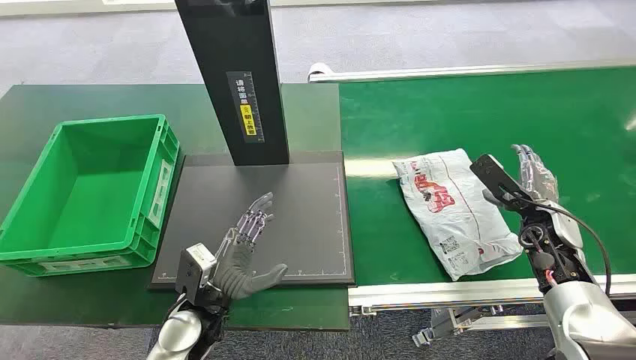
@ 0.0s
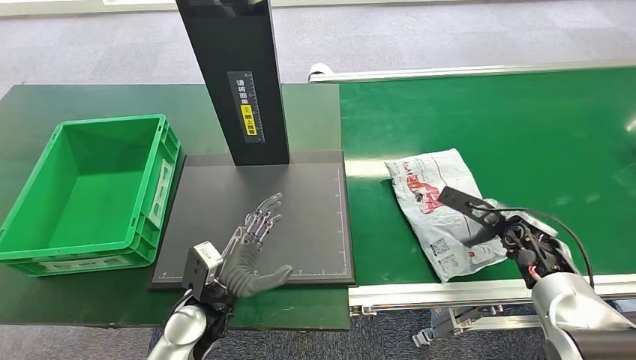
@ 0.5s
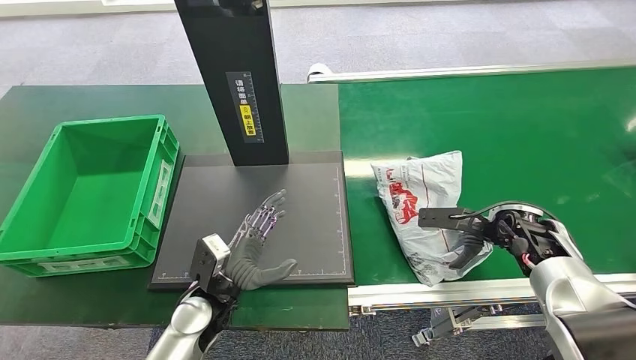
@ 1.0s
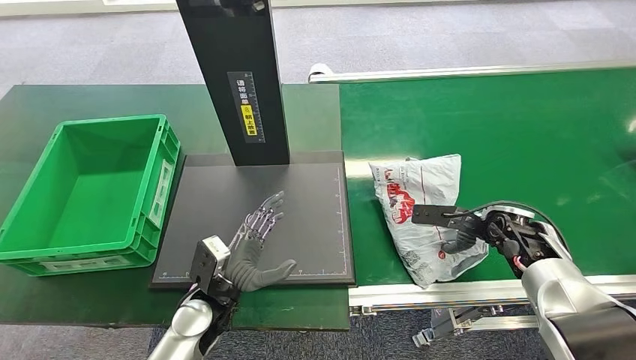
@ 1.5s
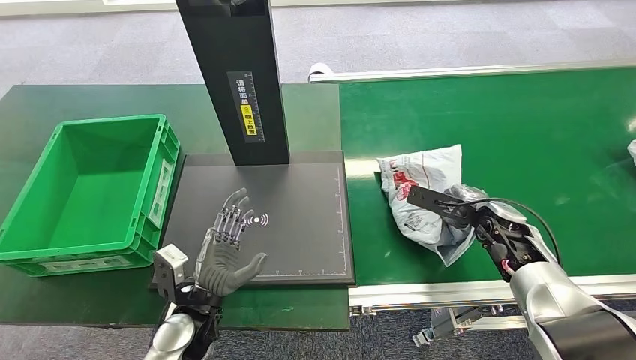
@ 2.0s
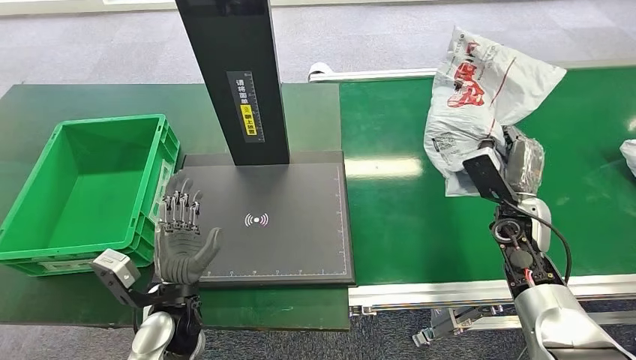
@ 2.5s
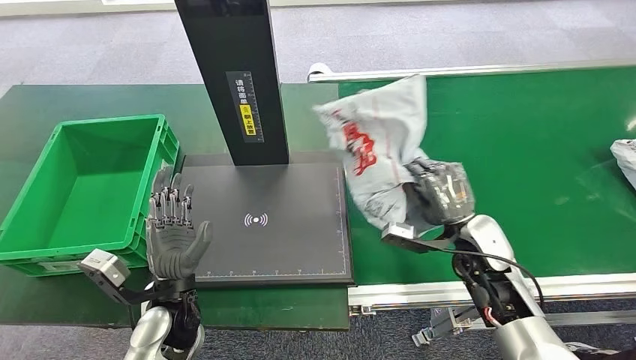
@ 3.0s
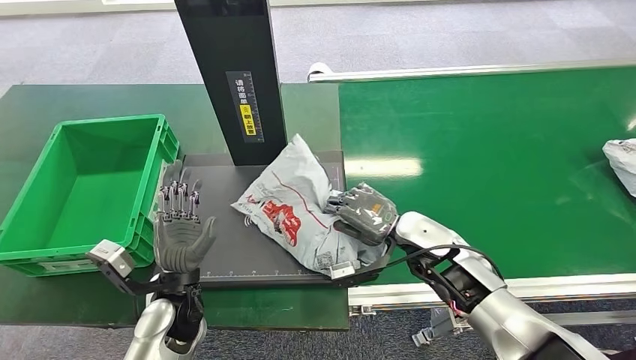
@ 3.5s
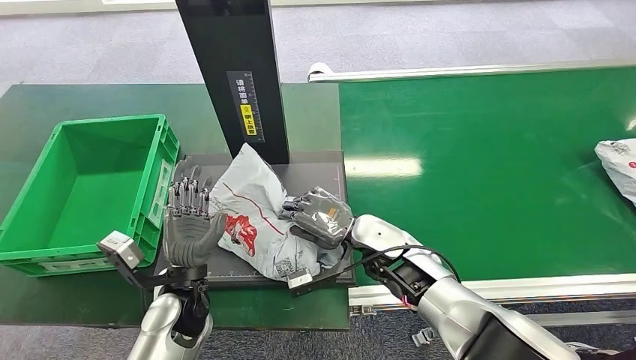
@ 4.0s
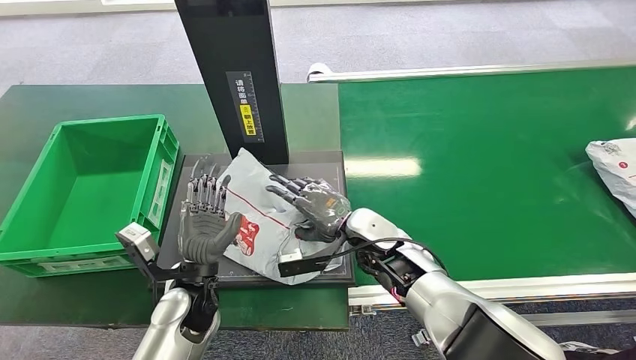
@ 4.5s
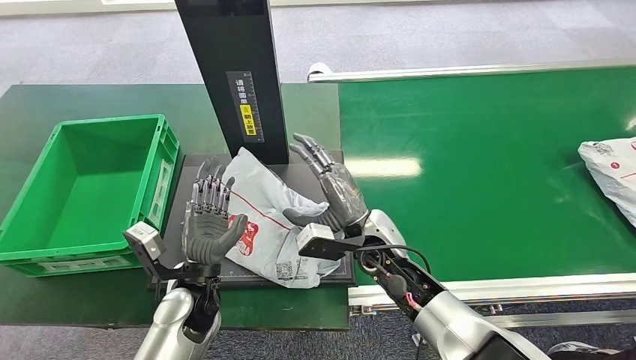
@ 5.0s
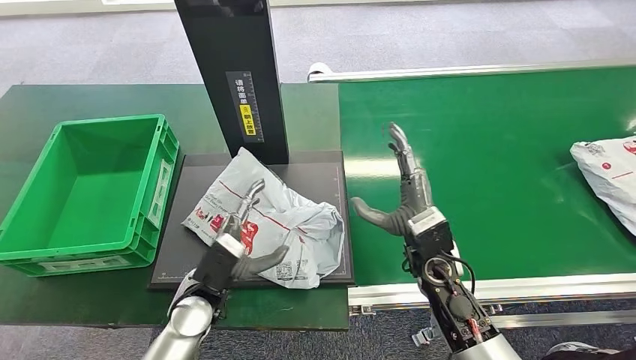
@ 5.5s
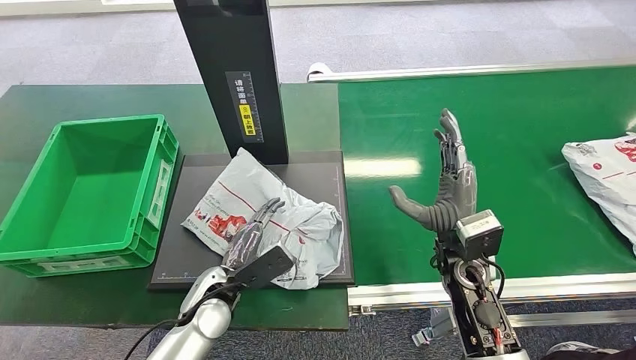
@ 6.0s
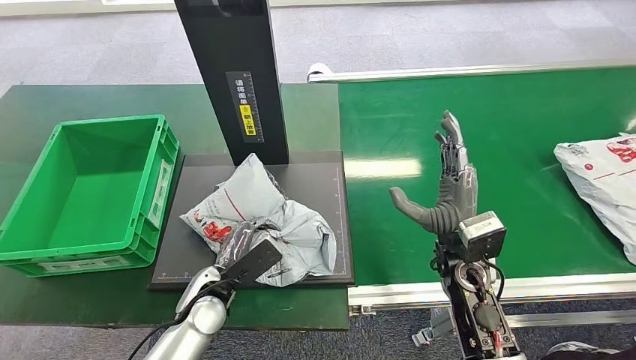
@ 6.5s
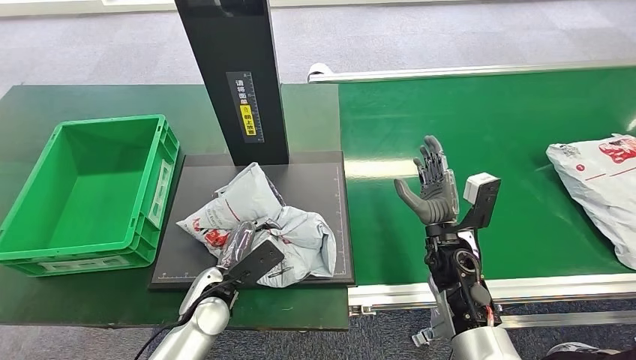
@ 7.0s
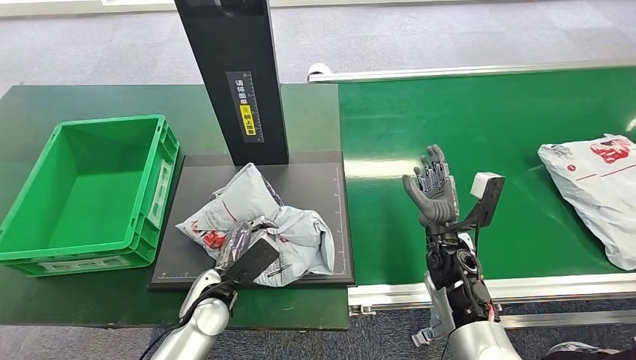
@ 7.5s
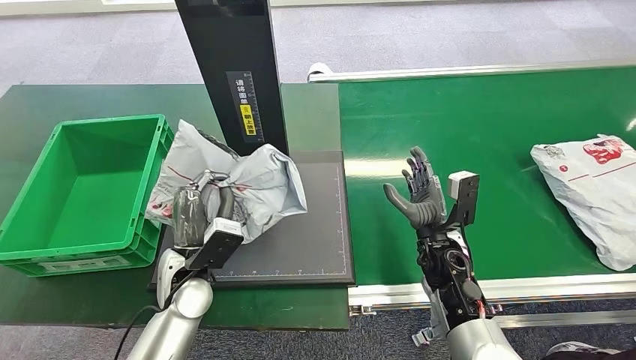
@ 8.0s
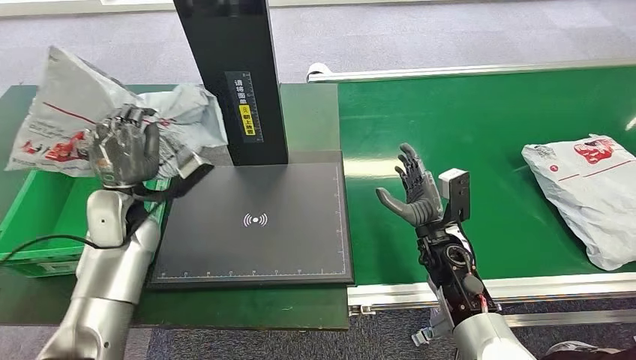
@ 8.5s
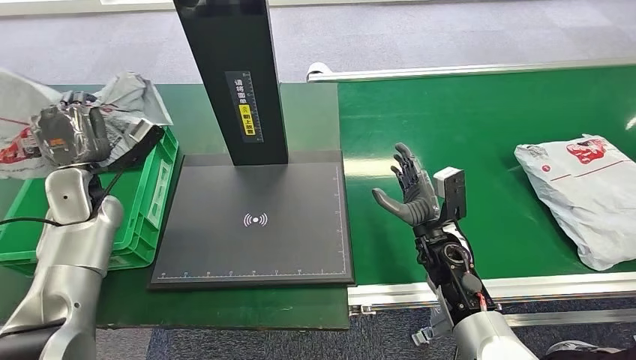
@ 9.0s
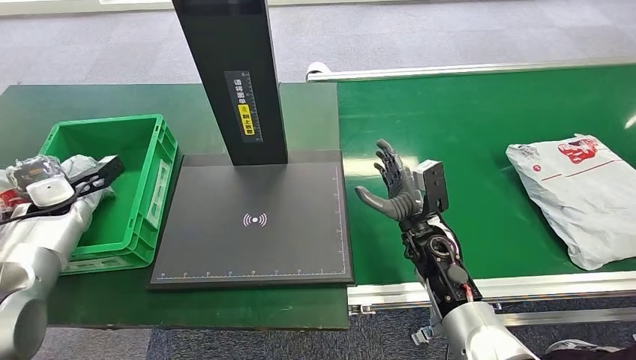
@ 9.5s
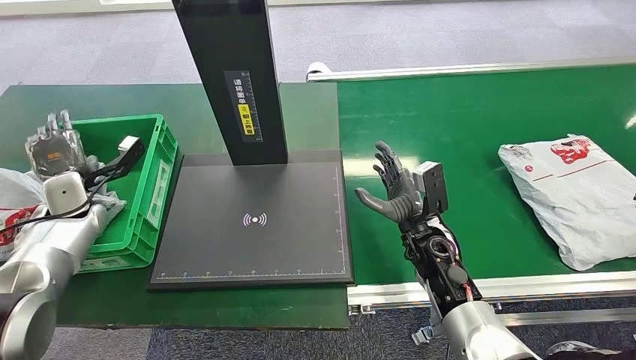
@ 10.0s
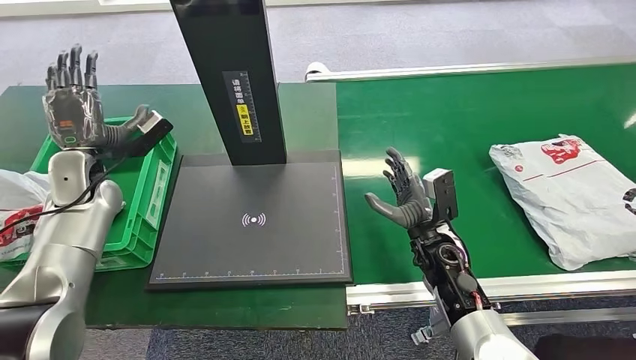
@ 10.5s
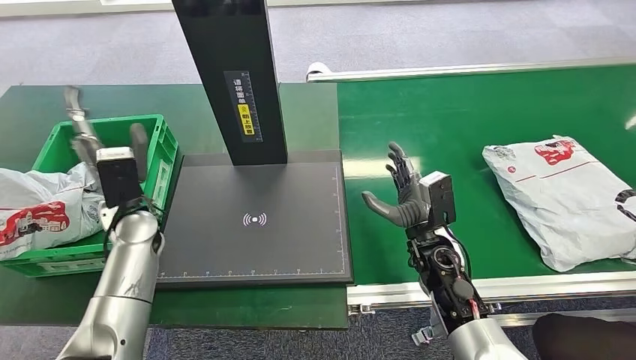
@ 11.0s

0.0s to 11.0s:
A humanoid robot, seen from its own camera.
Task of the whole recording: Weigh the package on the weighing device and place it in the left basket.
Step, 0.0s to 2.0s: Pick up the package from the conveyor belt.
Step, 2.5s to 5.5s: Place the package onto the inbound machine.
Step, 6.0s to 8.5s: Pick up the package from the inbound machine.
Step, 9.5s to 11.0s: Place the package into the parcel locker.
3.5s to 5.5s: The right hand reaches some 10 cm to the left, then returns.
5.5s to 7.5s: The right hand moves roughly 5 cm.
